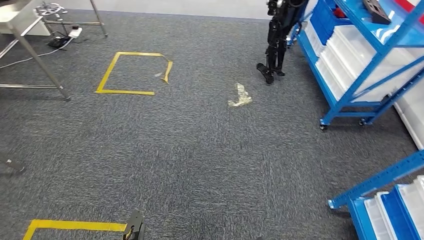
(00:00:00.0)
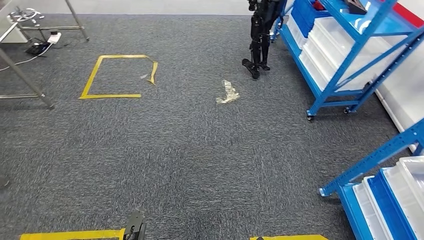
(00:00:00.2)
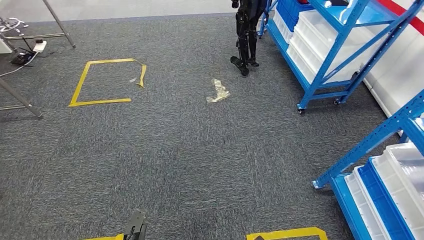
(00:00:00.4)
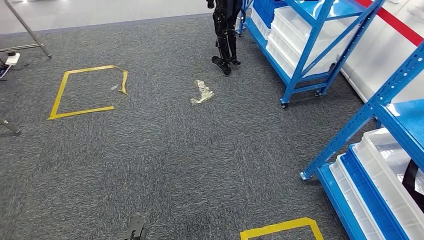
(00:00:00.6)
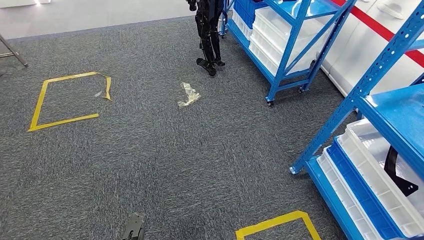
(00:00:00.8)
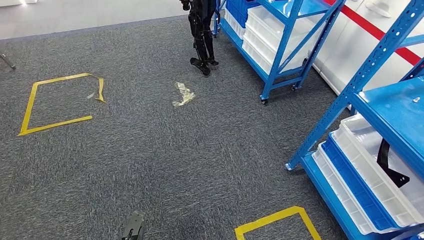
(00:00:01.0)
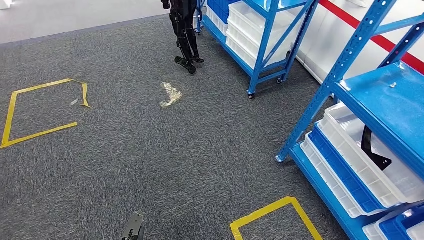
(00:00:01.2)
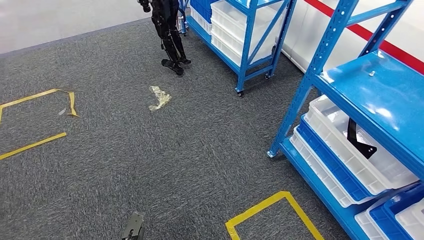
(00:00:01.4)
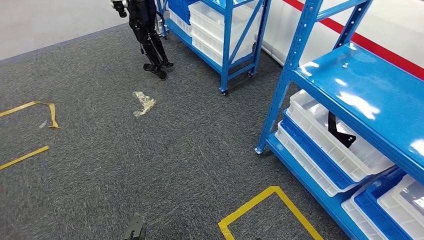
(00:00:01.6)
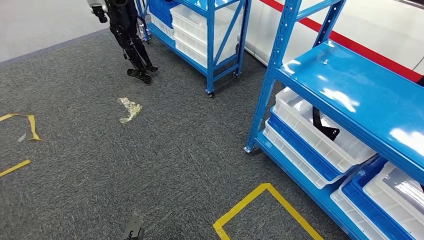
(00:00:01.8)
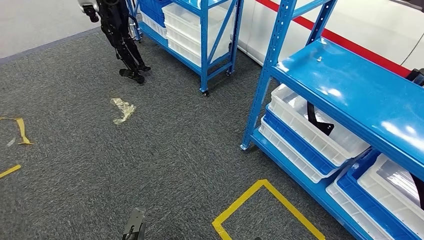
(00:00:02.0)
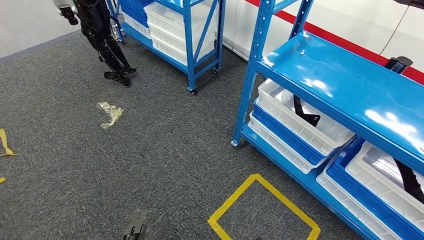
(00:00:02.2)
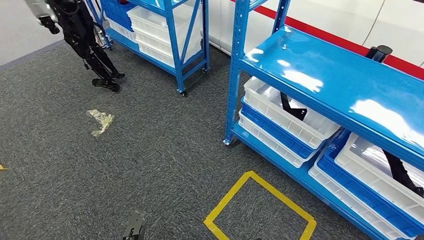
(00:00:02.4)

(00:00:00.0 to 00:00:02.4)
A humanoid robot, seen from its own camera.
Step, 00:00:00.0 - 00:00:02.4: Move to the initial position of the shelf.
